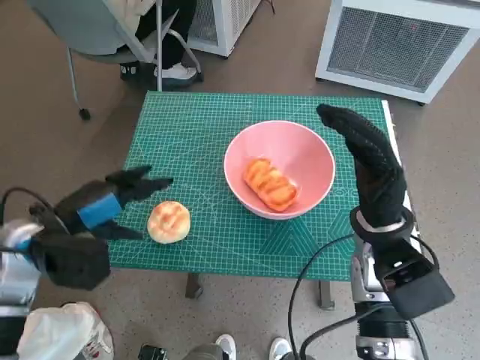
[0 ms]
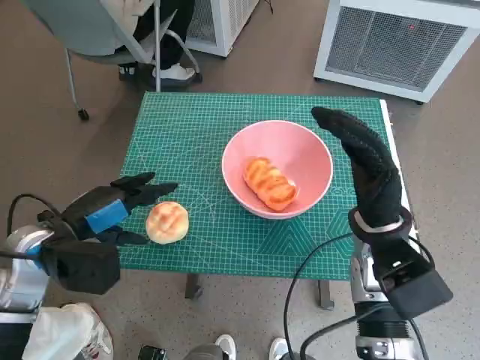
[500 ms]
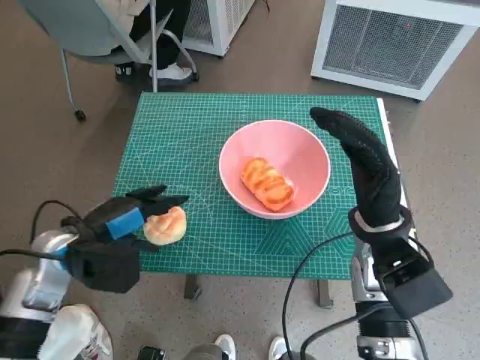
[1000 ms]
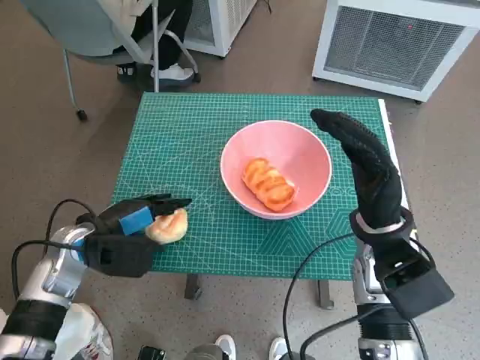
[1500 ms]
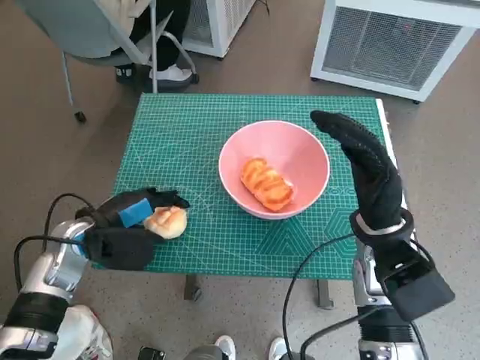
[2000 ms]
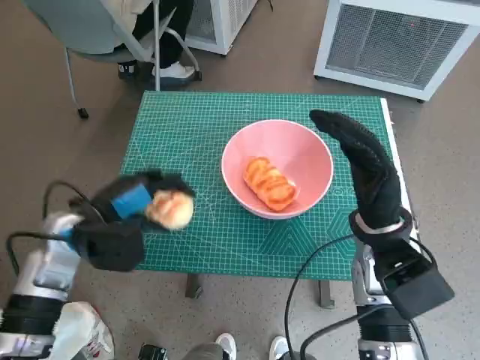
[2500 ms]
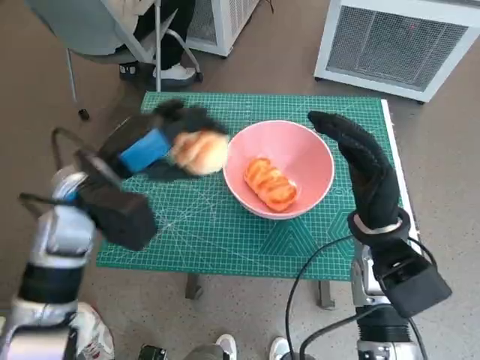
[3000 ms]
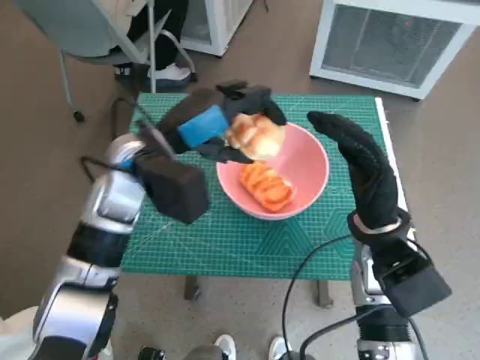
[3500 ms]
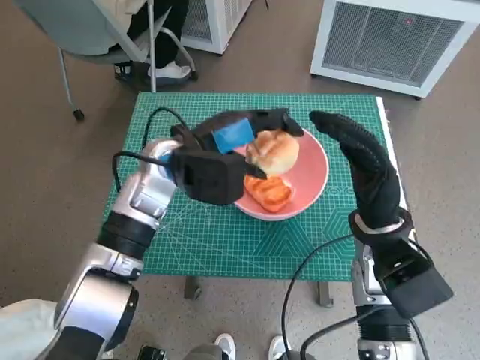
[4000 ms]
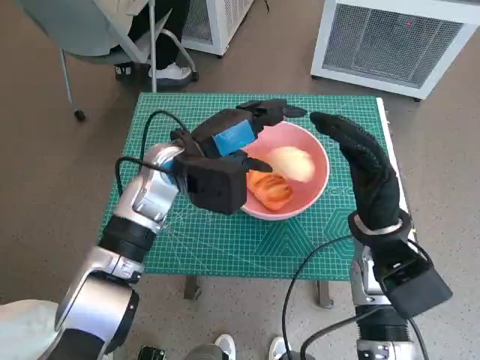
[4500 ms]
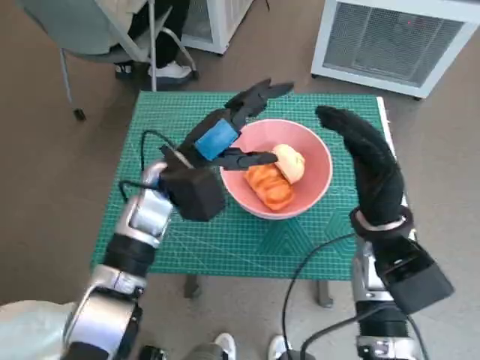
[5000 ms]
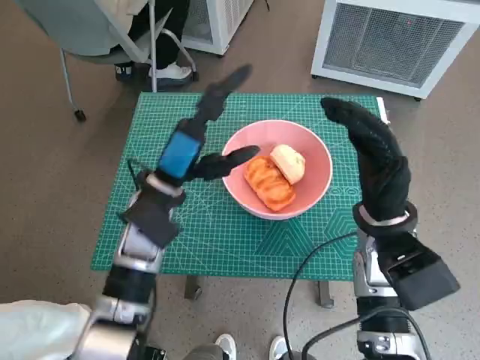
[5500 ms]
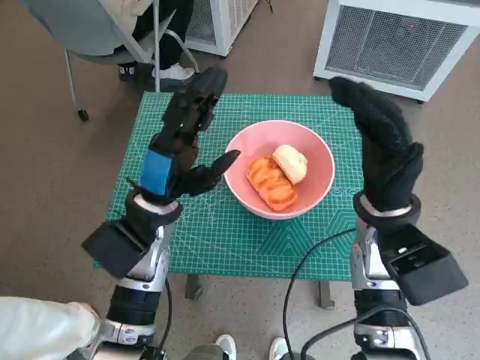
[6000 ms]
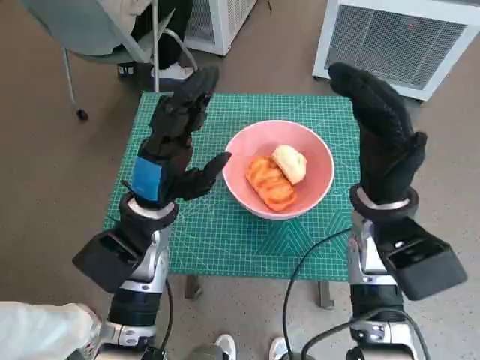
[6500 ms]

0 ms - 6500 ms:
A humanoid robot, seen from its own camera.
Task of the whole recording: Push the bowl to the center of the table and put the bread into the bowl.
Step, 0 ms - 1500 ms: Grasp the round bread with left hand.
Step, 2000 ms - 5000 ms: Place the round bread in pink bowl with left hand.
0 ms - 2000 ms: The left hand shifts about 5 cm downward.
2000 ms - 4500 ms: The left hand is displaced to the right, upward and forward by about 20 cm.
4500 ms - 6500 ms: The left hand goes approximately 5 cm backward.
